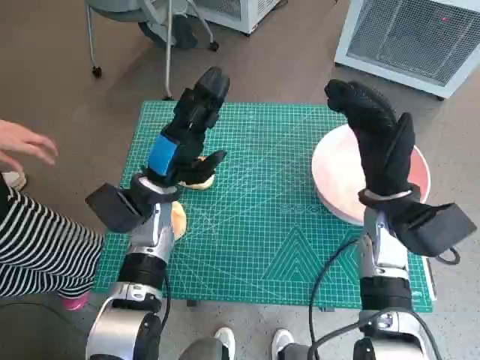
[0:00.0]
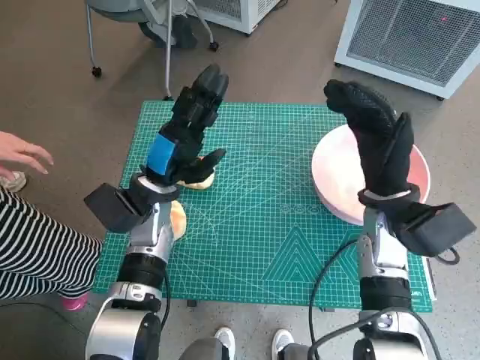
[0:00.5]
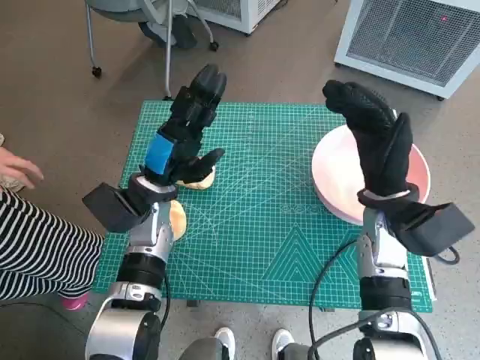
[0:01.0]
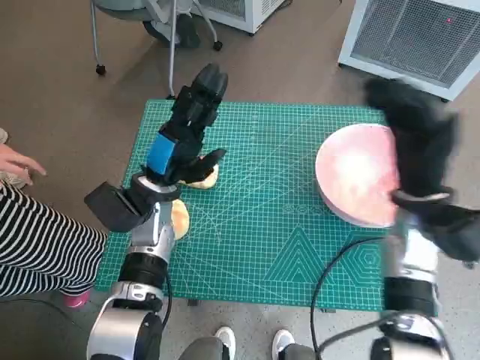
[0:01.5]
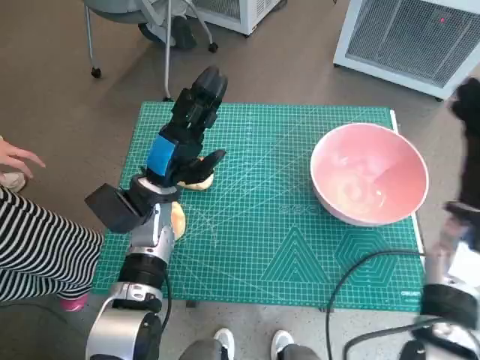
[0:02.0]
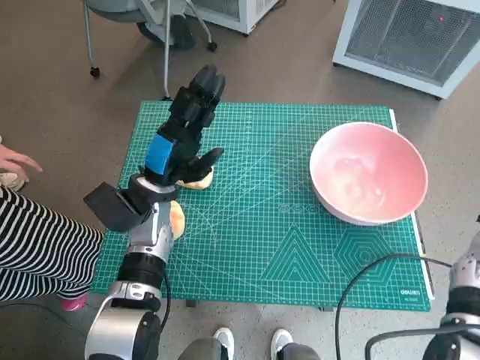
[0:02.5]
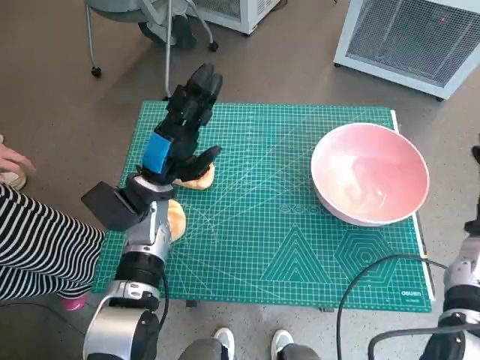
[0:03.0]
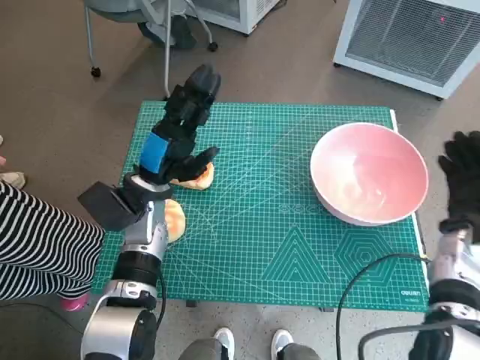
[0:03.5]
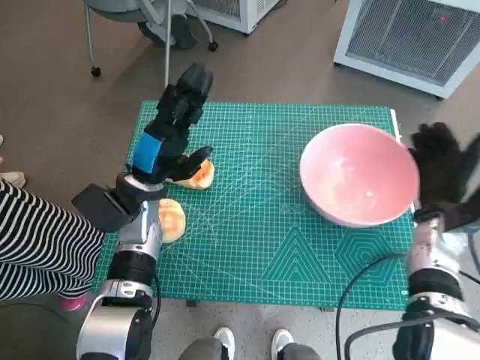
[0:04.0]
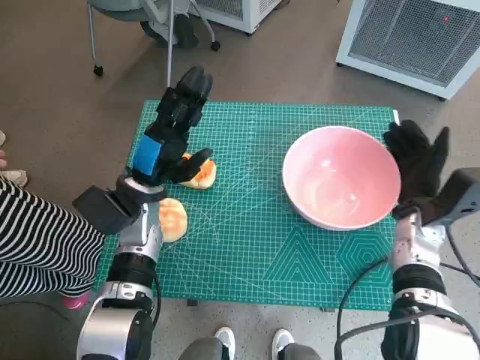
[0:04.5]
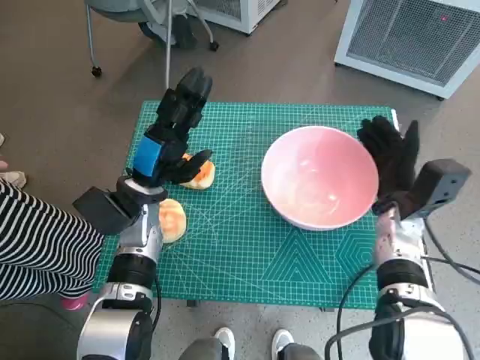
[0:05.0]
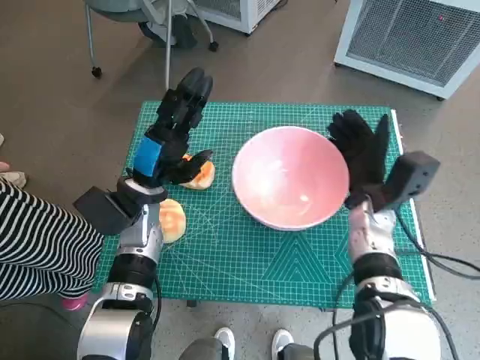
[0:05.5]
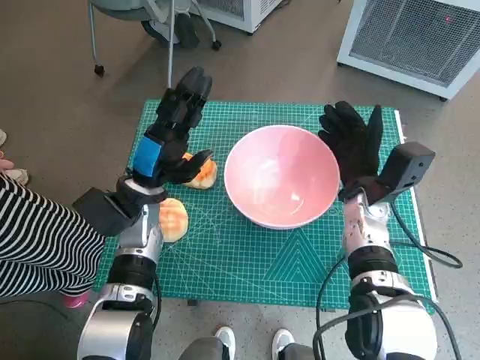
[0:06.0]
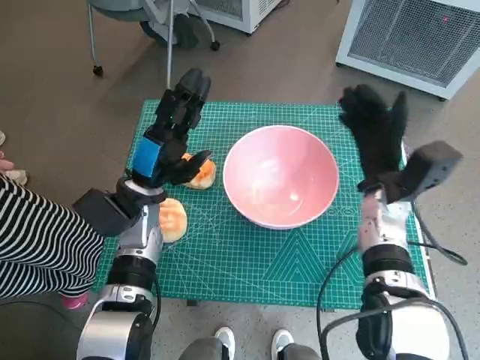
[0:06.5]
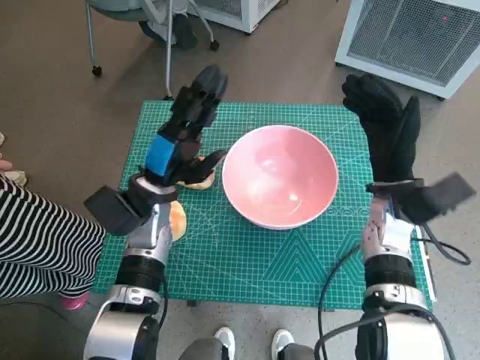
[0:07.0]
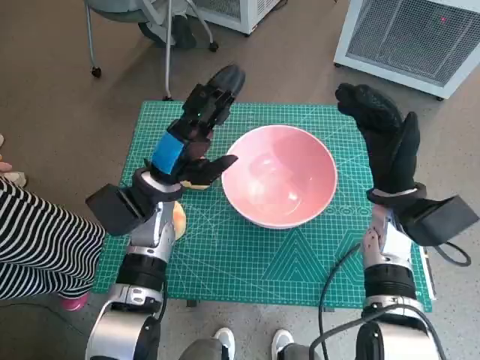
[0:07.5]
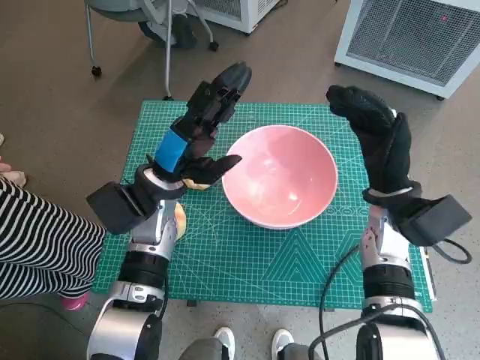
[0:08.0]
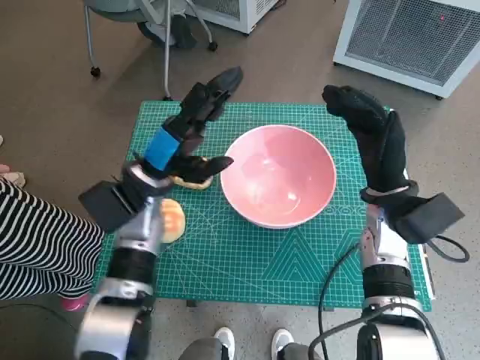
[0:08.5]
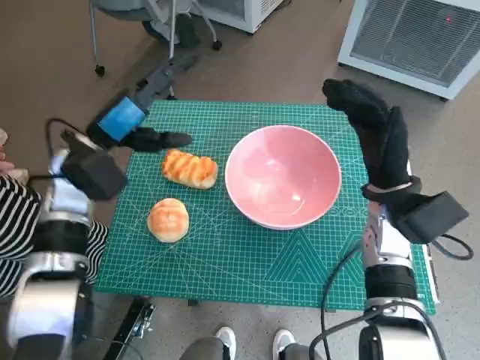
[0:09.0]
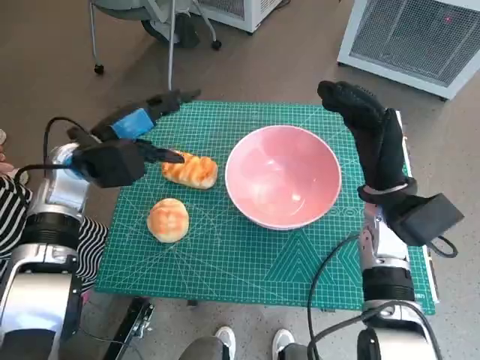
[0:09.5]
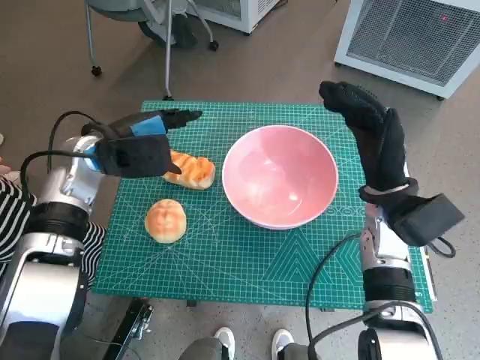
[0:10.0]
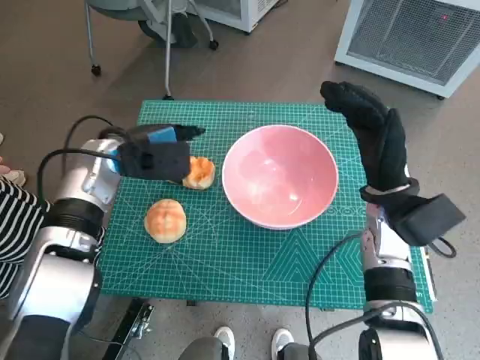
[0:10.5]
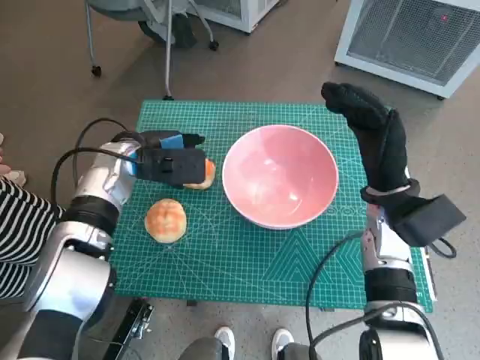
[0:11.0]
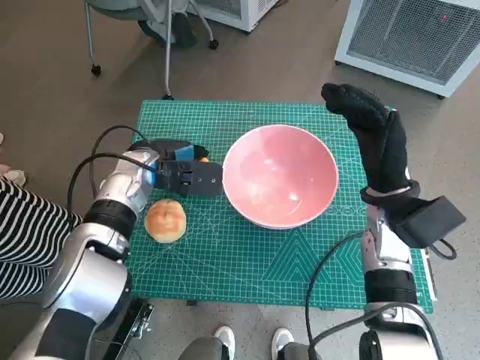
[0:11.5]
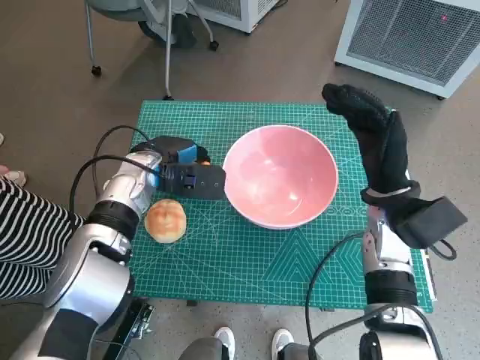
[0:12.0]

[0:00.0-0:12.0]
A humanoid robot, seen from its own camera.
Task of the whole recording: Push the bowl into the center of the table and put the bread into the bowl.
Step, 0:00.0 to 0:06.0: Move the pink bowl to the center of table with right hand.
Step, 0:06.5 to 0:12.0: Grasp the long bread with left hand.
0:02.0 to 0:04.0: The right hand heads downward, covering some 5 cm.
0:04.0 to 0:06.0: The right hand moves to the left, approximately 10 cm.
0:06.0 to 0:08.0: The right hand shifts by about 5 cm.
0:08.0 to 0:10.0: The left hand travels to the left by approximately 10 cm.
0:10.0 to 0:12.0: The left hand is displaced to the right and downward by approximately 10 cm.

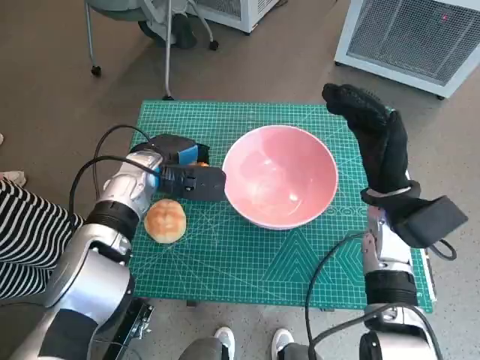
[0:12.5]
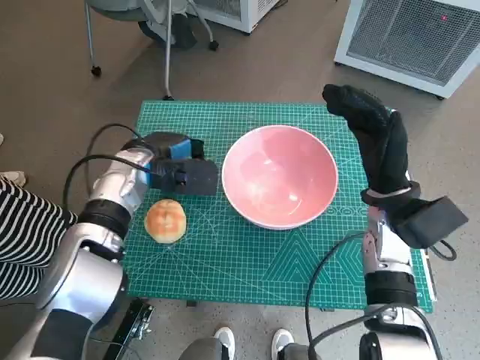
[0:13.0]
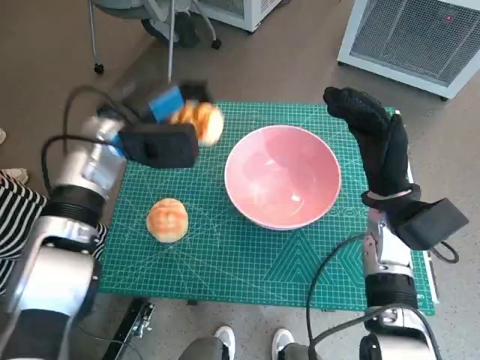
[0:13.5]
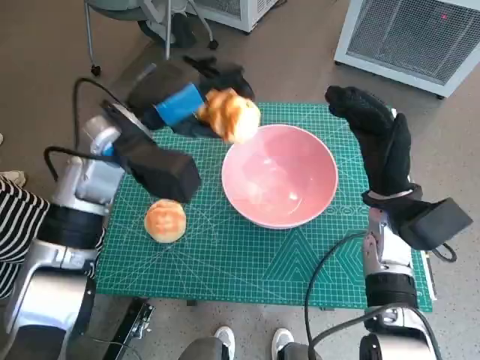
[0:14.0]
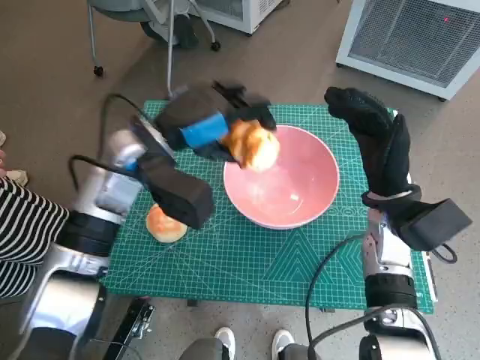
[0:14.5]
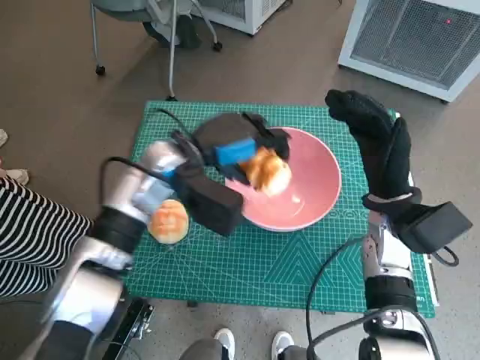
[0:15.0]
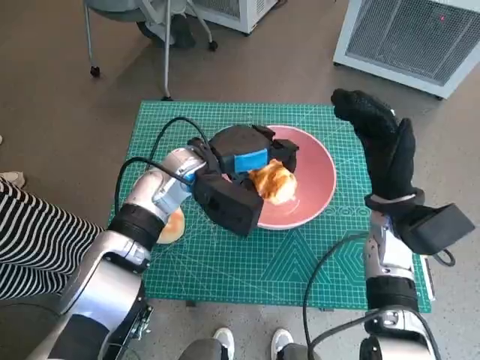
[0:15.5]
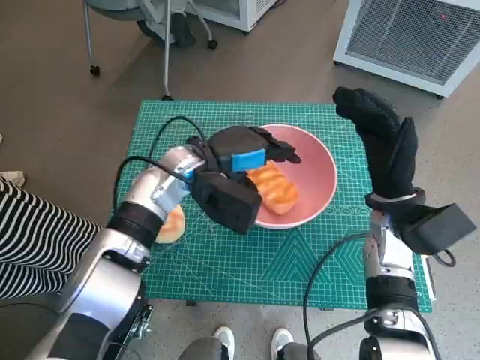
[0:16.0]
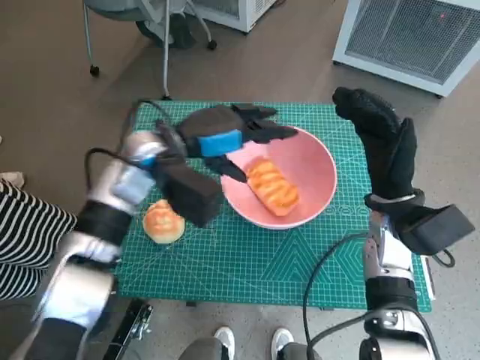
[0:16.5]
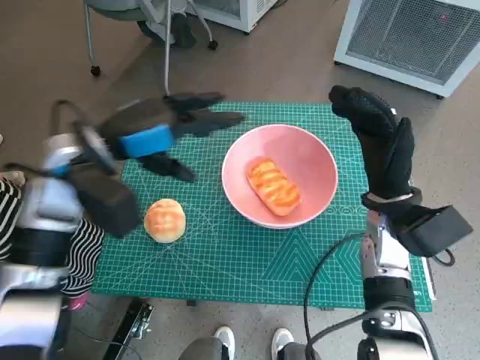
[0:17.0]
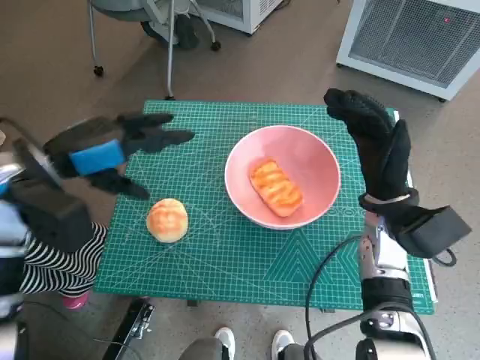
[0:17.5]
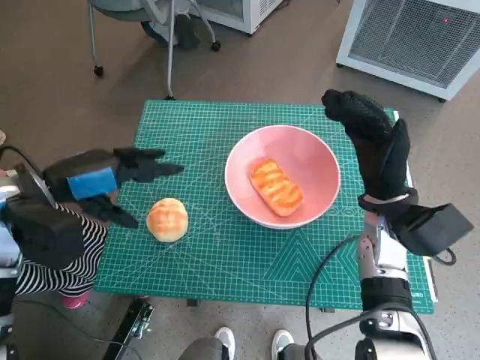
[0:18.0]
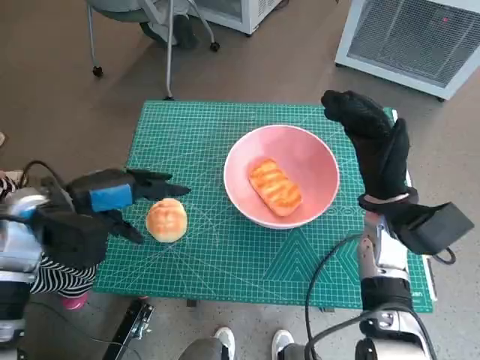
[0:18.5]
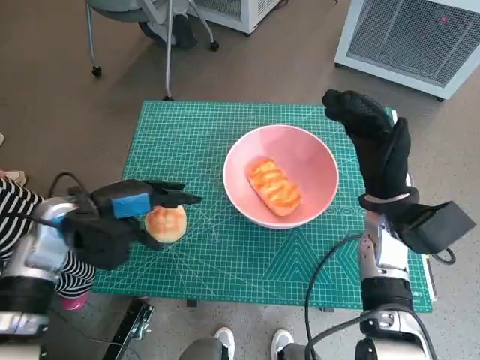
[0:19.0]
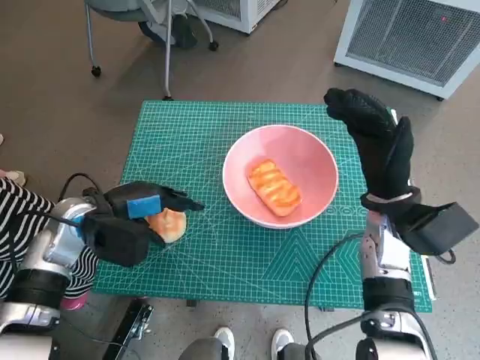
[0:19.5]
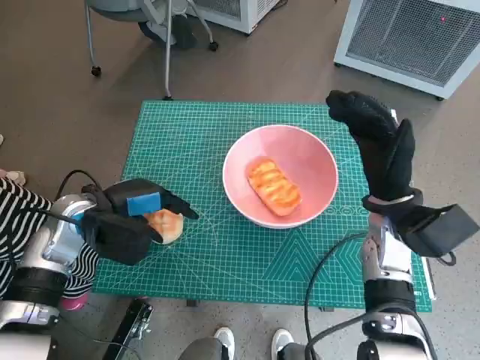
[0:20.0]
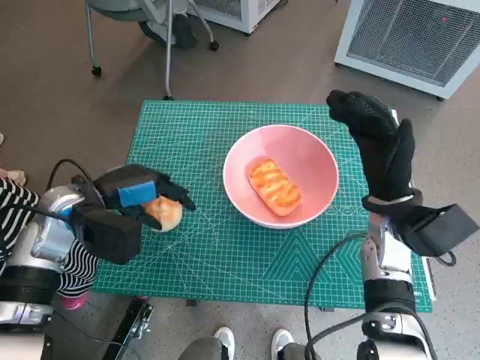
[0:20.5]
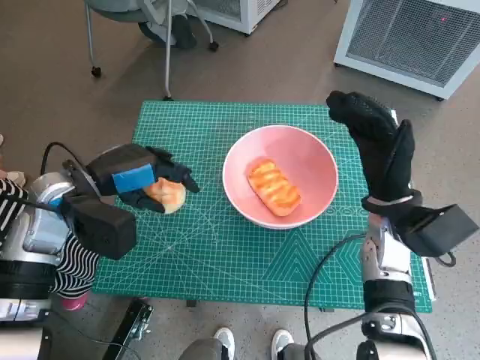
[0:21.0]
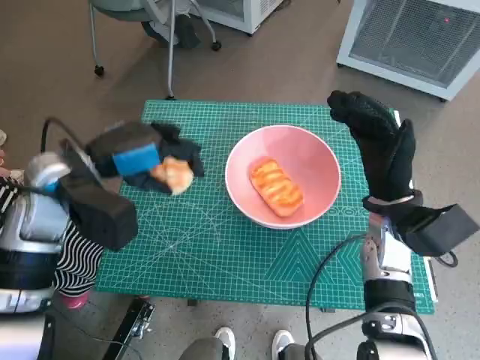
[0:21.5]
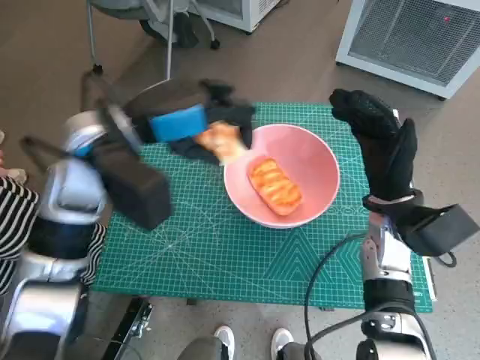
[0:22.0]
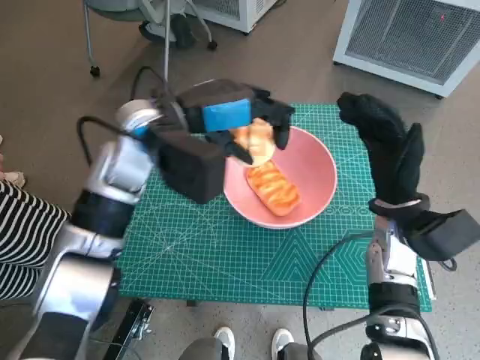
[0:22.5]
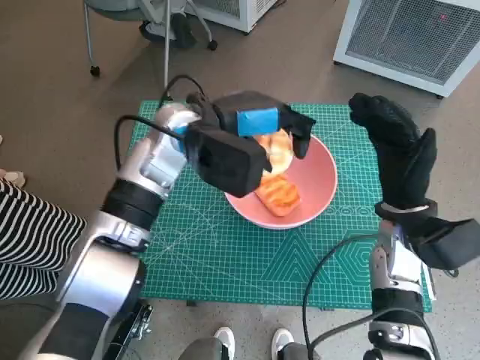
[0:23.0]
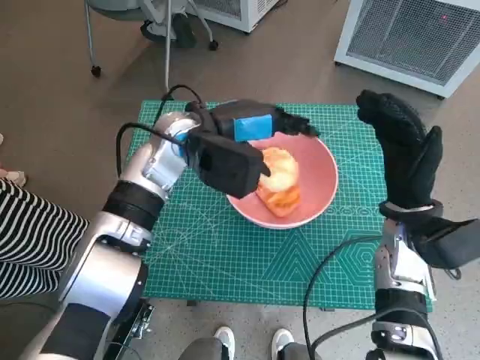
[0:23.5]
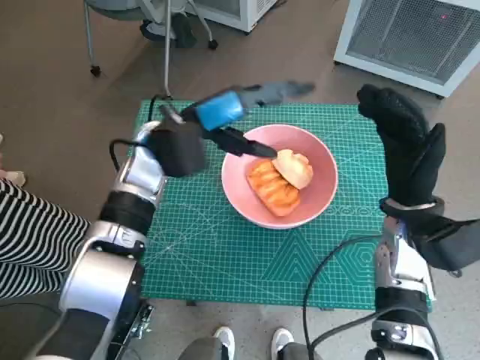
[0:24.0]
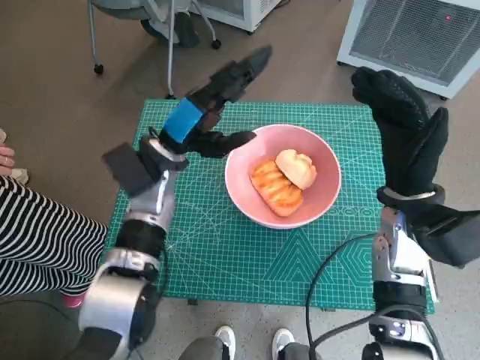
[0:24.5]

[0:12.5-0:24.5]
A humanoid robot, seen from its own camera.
Task of the whole recording: Push the bowl into the center of the table and put the bread into the bowl.
Step, 0:12.5 to 0:16.5: Place the long bread in pink bowl with left hand.
Step, 0:17.0 to 0:19.5: Grasp the round bread with left hand.
Step, 0:20.0 to 0:24.0: Place the round bread in pink bowl with left hand.
0:12.5 to 0:14.5: The left hand goes approximately 10 cm upward.
0:16.5 to 0:18.5: The left hand is displaced to the left and backward by about 15 cm.
0:20.5 to 0:22.5: The left hand goes roughly 15 cm to the right, upward and forward.
0:22.5 to 0:24.5: The left hand moves downward, approximately 10 cm.

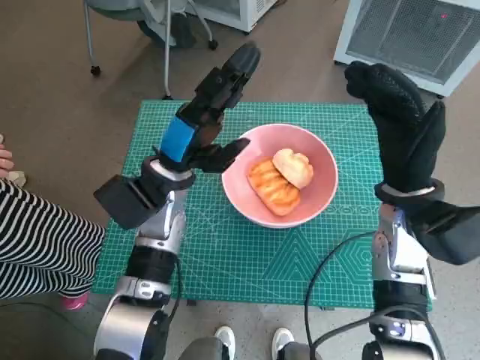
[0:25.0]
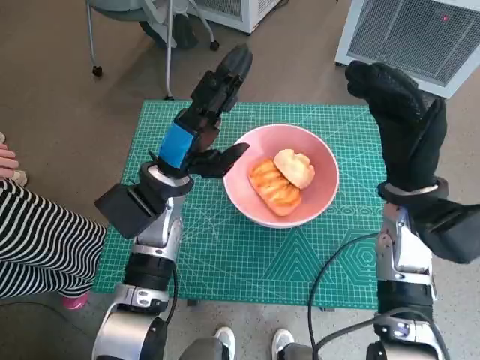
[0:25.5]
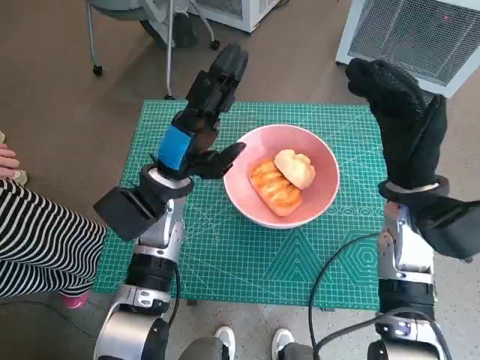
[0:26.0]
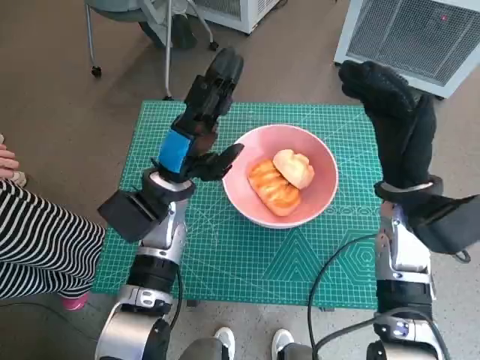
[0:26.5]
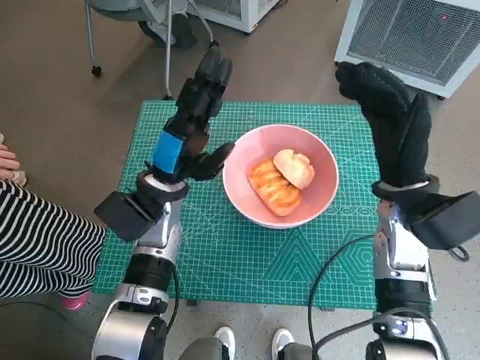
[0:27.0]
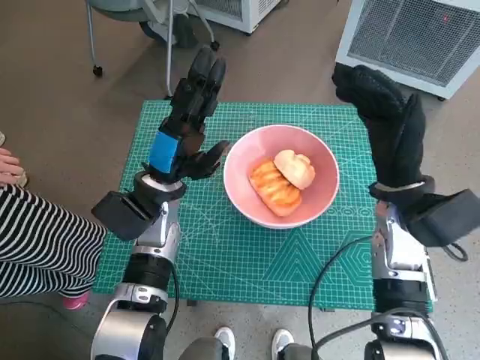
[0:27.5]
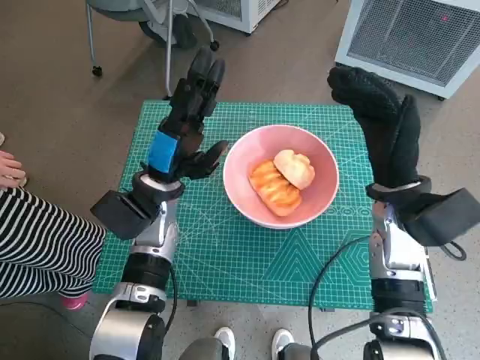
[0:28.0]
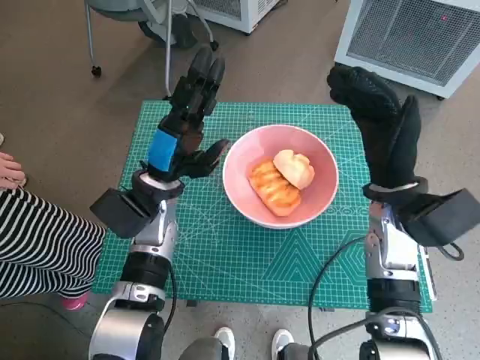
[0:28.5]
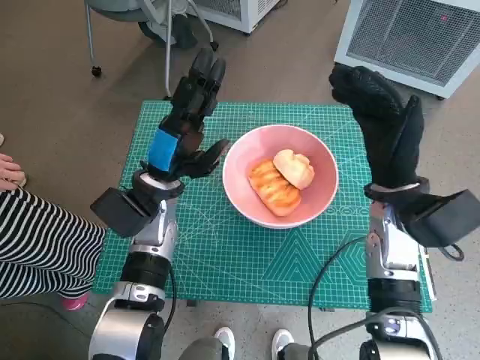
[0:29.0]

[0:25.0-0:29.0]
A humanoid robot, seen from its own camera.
Task of the whole recording: Push the bowl into the center of the table and put the bread into the bowl.
0:25.0 to 0:27.0: The hands stay close to where they were, moving slightly.
0:27.0 to 0:29.0: The two hands keep their place.
